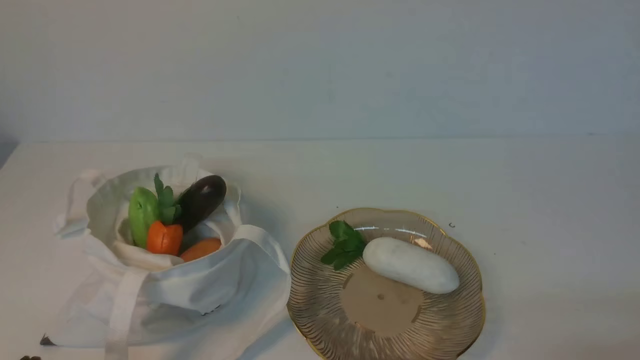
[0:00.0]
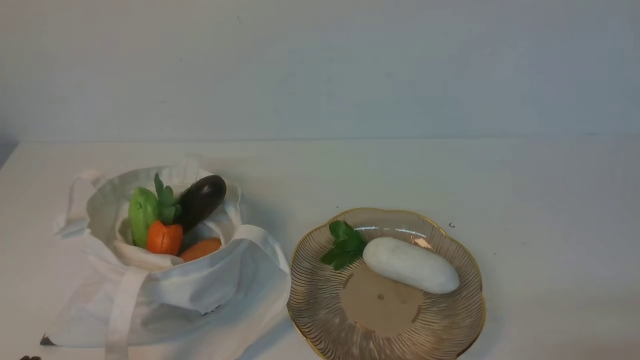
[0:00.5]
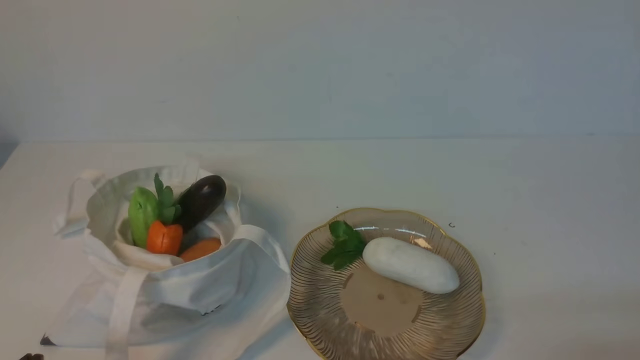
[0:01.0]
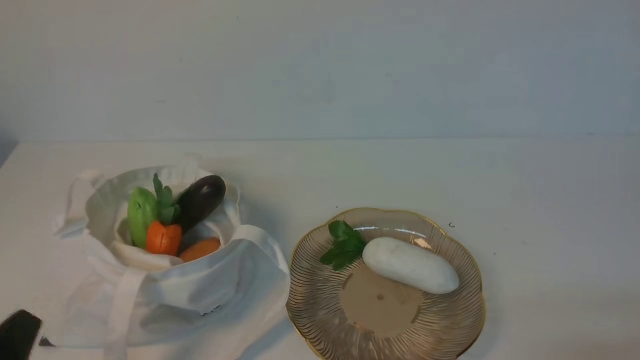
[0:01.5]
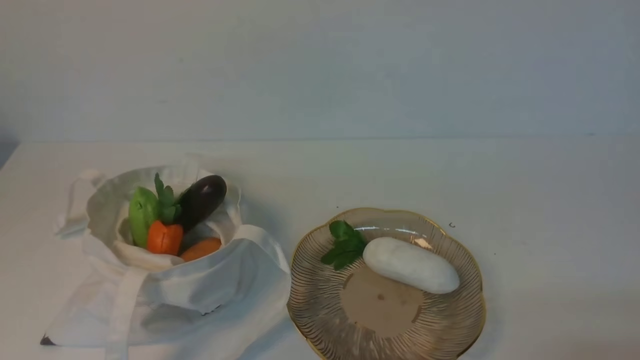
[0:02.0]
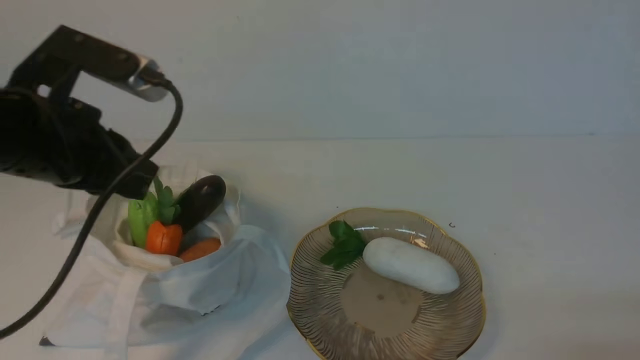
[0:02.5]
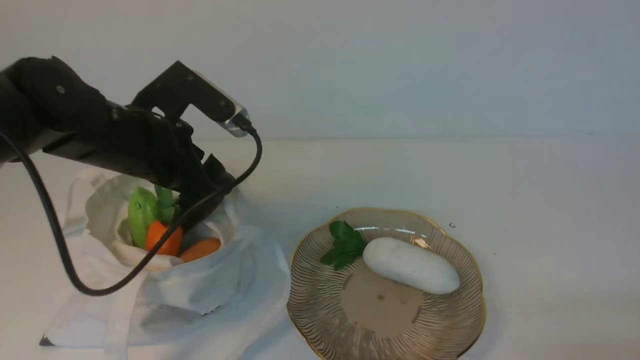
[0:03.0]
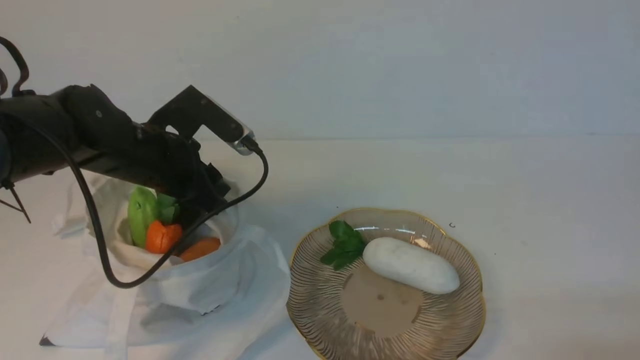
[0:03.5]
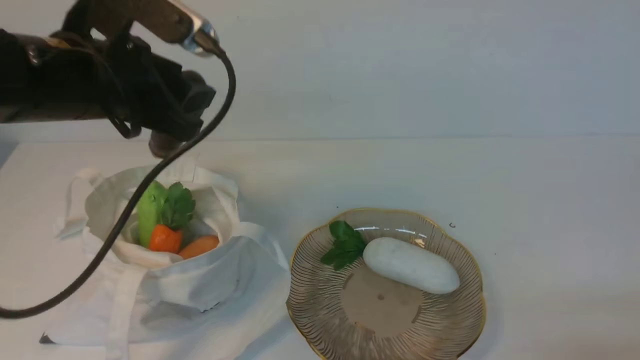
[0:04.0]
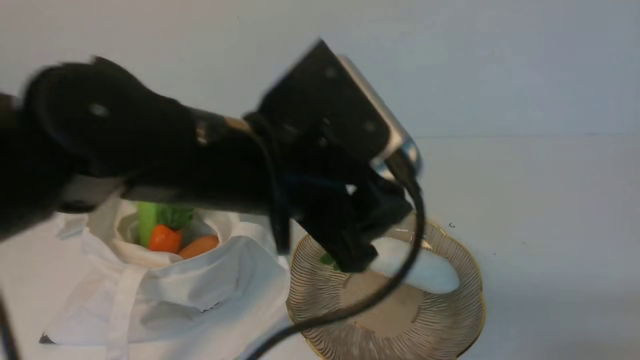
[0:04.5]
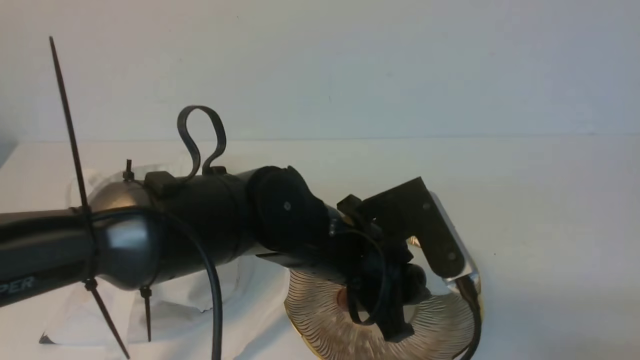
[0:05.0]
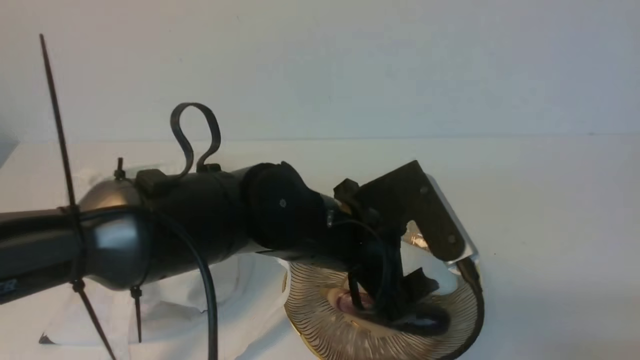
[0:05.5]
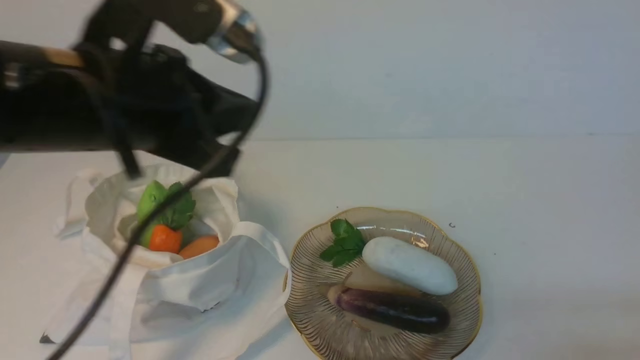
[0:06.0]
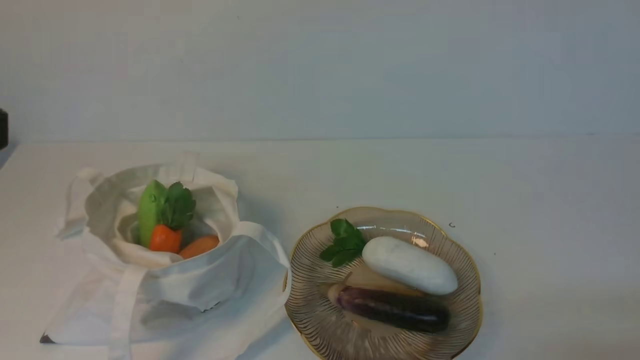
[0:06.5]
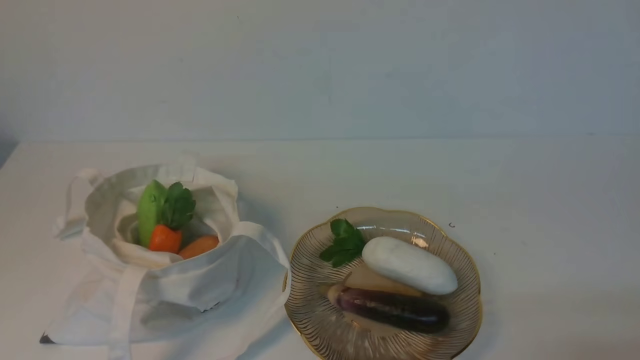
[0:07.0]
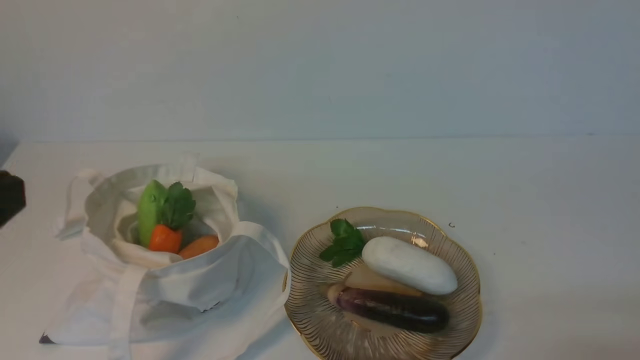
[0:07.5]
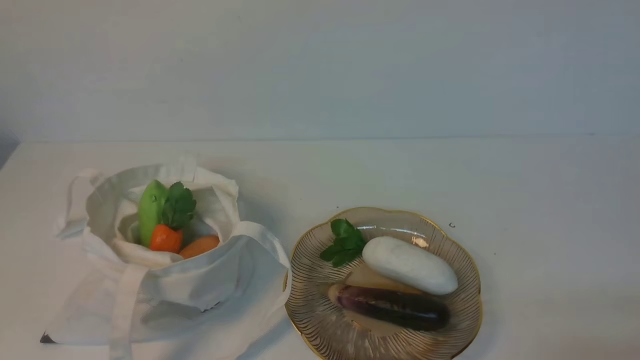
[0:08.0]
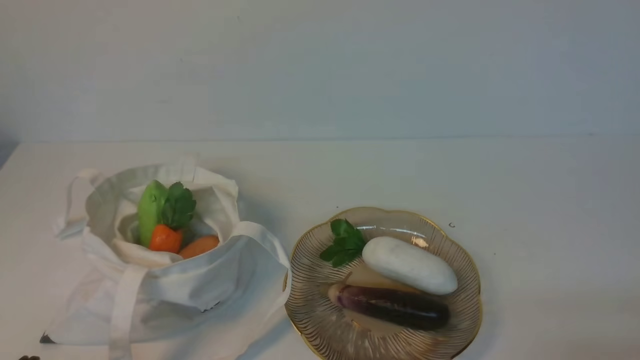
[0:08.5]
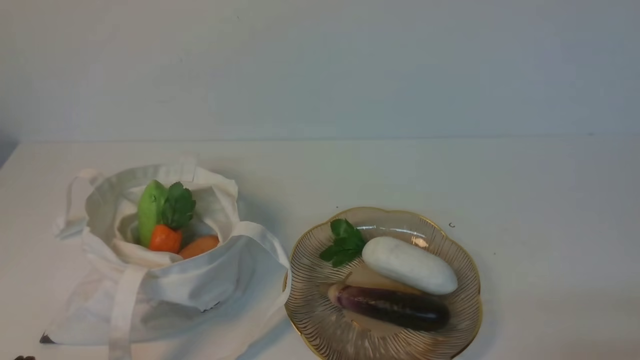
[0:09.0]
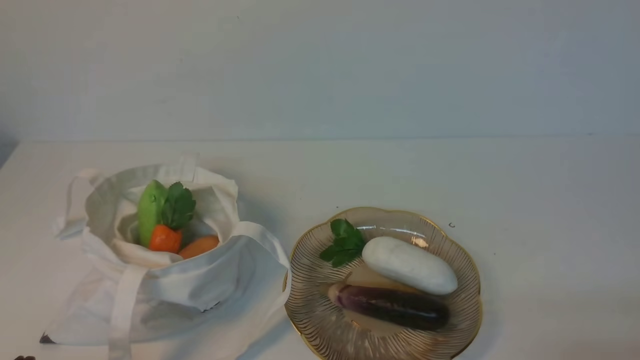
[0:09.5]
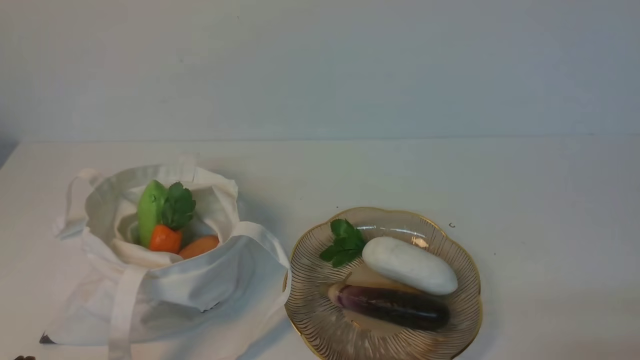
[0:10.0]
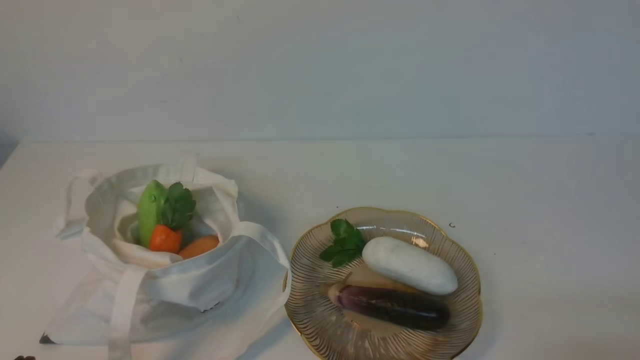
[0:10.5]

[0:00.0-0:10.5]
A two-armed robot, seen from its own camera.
Task of the whole recording: take vegetables from cloth bag on white table place on plate.
Step, 0:00.0 to 0:03.0: Grasp the eggplant with left gripper.
Step, 0:03.5 to 0:05.5: Place the eggplant on the plate with left gripper.
0:02.0 to 0:04.0: The left gripper moves forward, roughly 25 cm, and opens up.
0:04.0 to 0:06.5: The left gripper shifts roughly 20 cm backward and upward, goes to the right and returns, roughly 20 cm each way, and closes up.
0:08.5 to 0:10.5: Both grippers stay put.

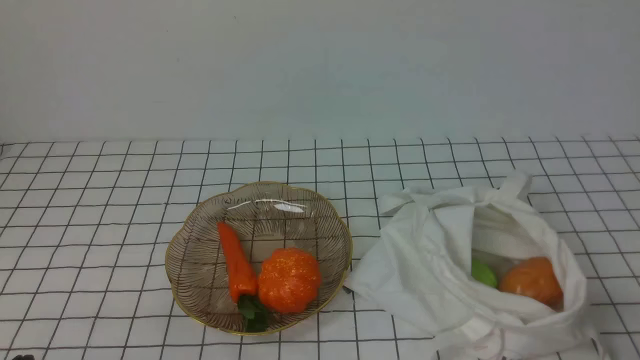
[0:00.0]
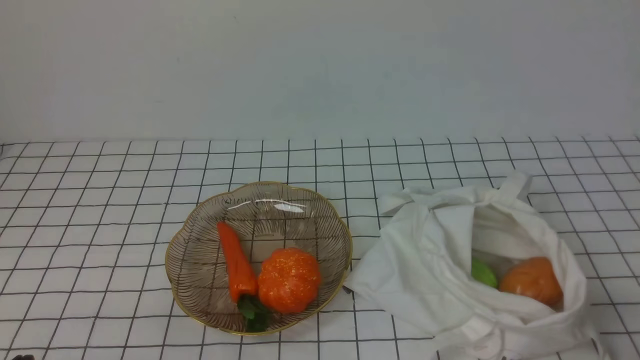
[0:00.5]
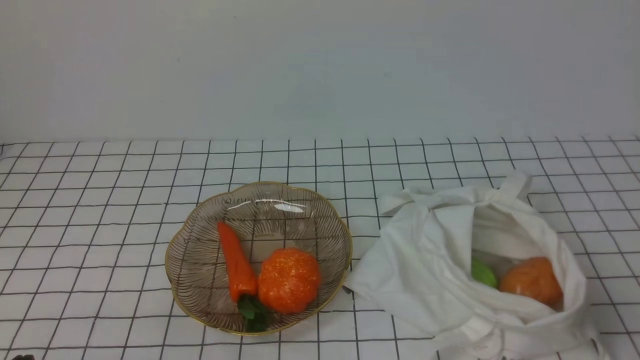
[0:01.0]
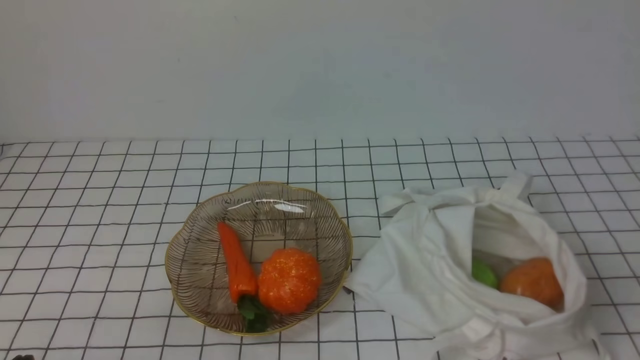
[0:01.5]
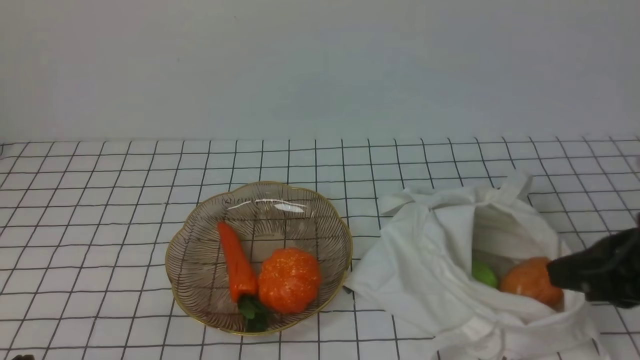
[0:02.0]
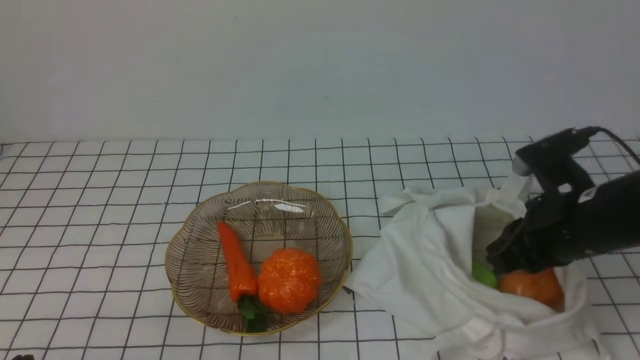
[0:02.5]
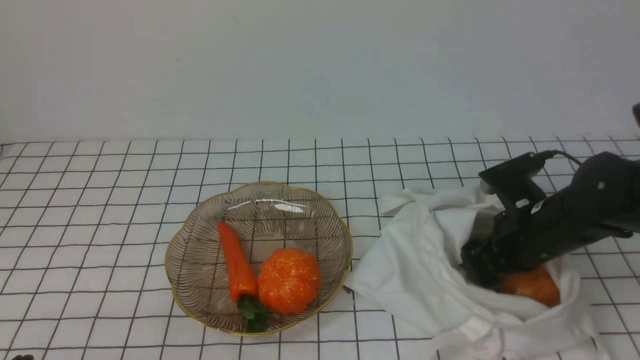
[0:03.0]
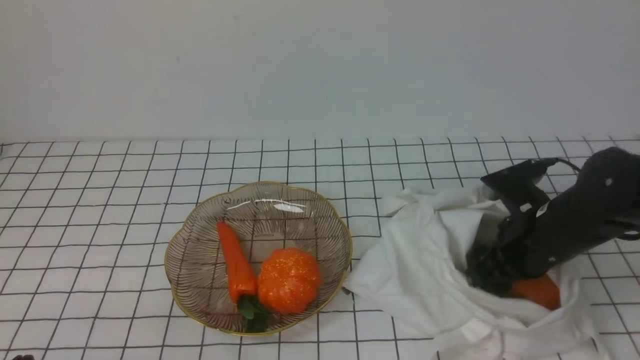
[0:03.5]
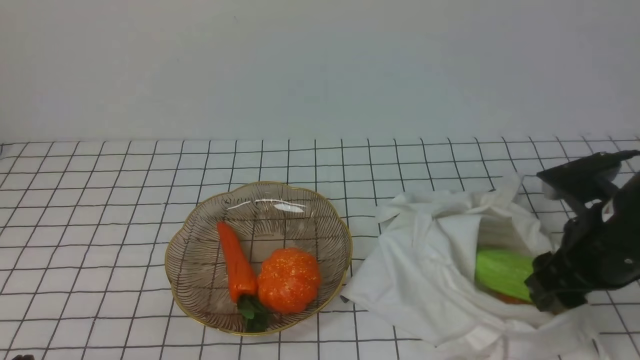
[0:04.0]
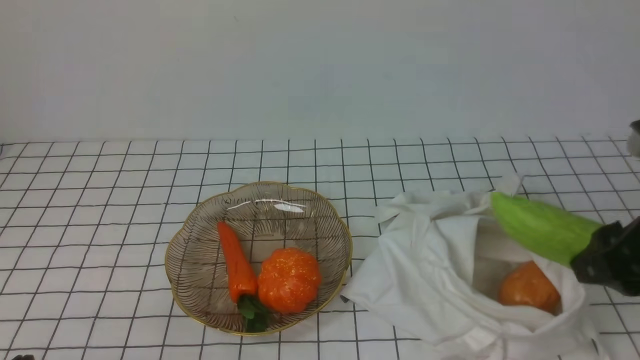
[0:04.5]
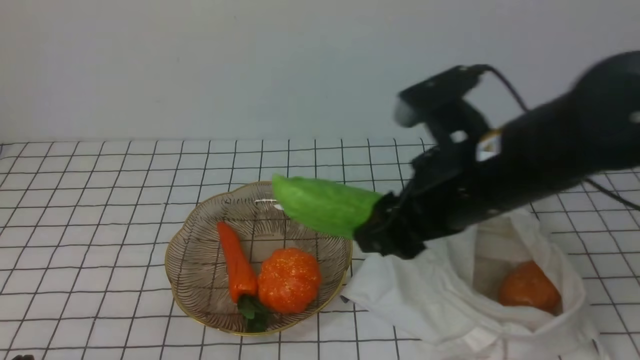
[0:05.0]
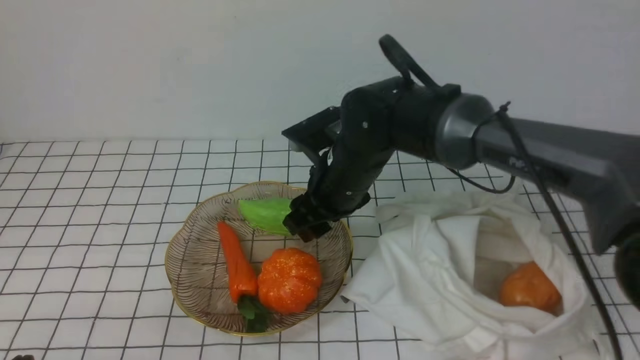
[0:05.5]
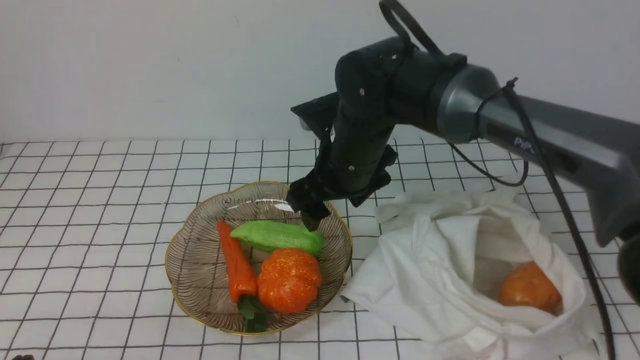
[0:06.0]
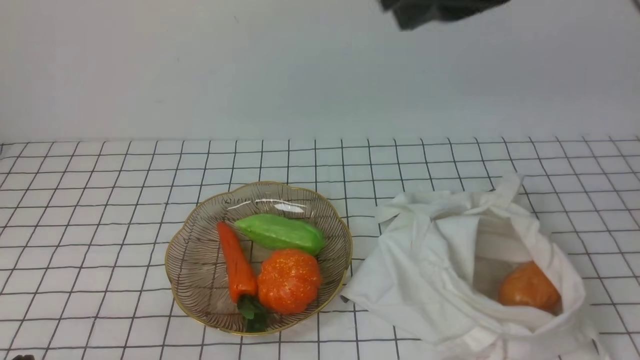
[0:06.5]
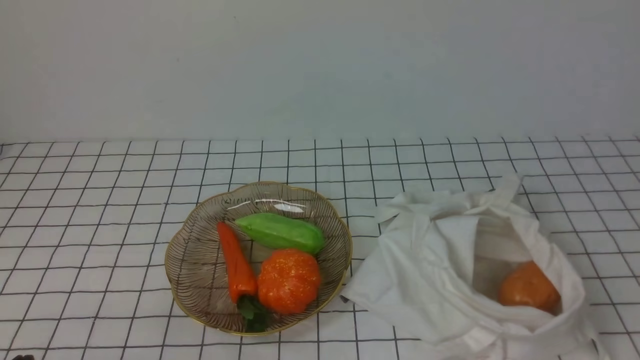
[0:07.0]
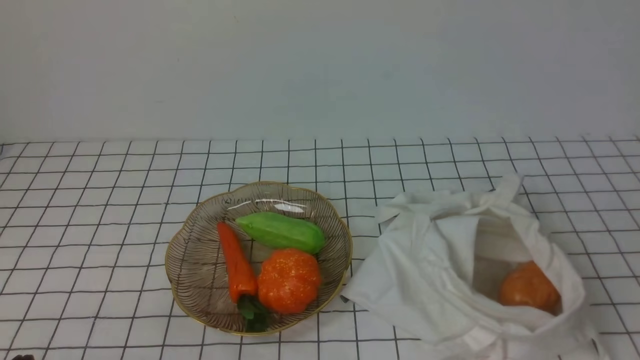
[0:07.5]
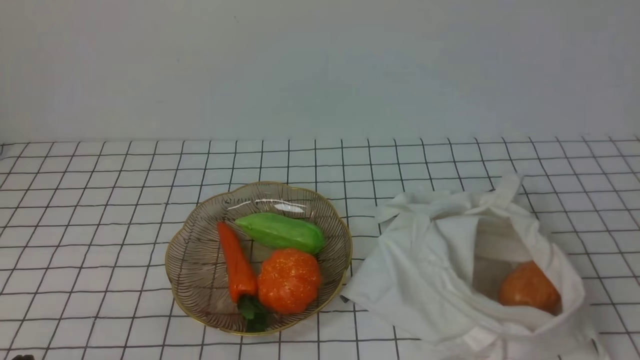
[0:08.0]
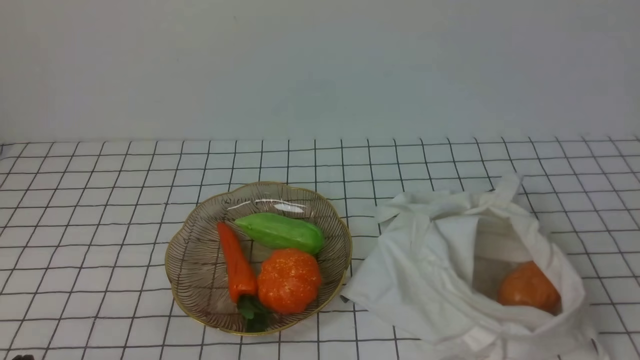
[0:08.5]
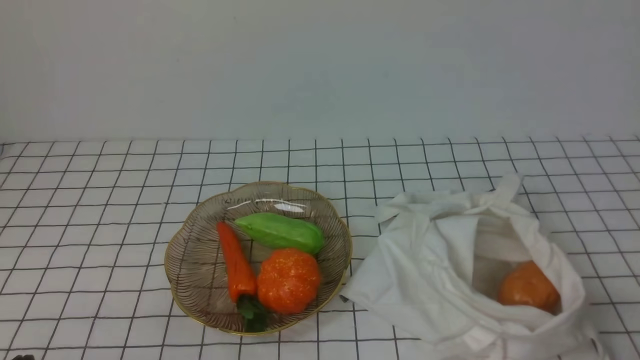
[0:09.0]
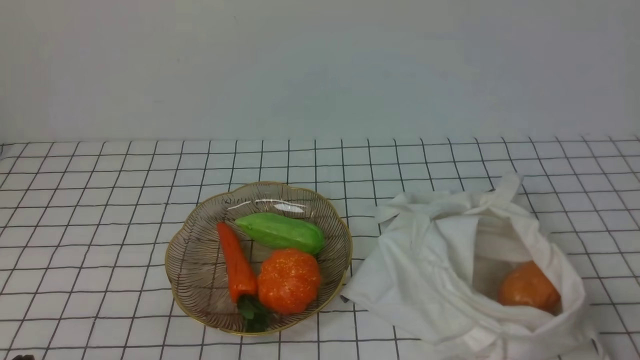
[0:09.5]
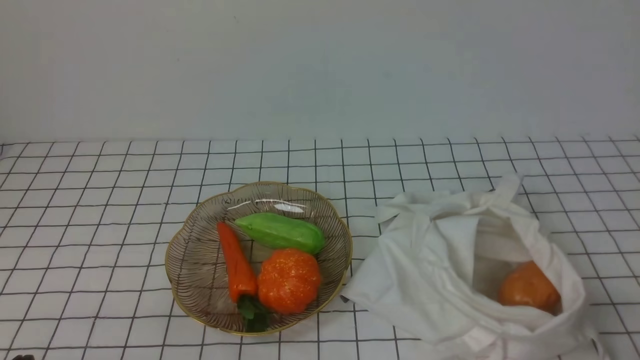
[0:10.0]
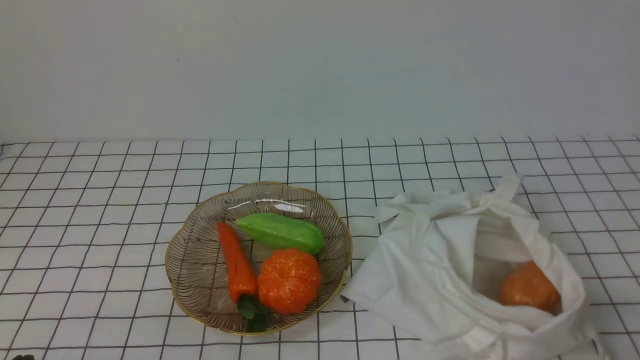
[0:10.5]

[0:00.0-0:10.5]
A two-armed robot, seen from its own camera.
Task of the whole recording: take vegetables from bag on white checkered tablecloth place on plate.
Step, 0:00.0 to 0:03.0: Grasp the bitter melon with right gripper.
Step, 0:04.0 to 0:06.0: Place the bitter melon on the plate with right gripper.
0:00.0 to 0:02.0: The right gripper shifts about 15 cm forward and upward.
0:02.0 to 0:04.0: The right gripper moves forward and downward, some 10 cm, and opens.
0:04.0 to 0:06.5: The right gripper goes up and down, approximately 25 cm each way, reversing 2 times, and closes.
0:06.5 to 0:08.5: The right gripper moves backward, downward and to the right, some 30 cm.
